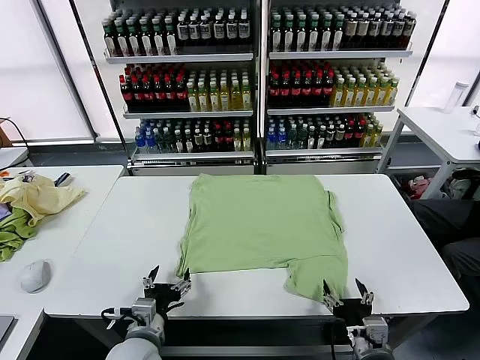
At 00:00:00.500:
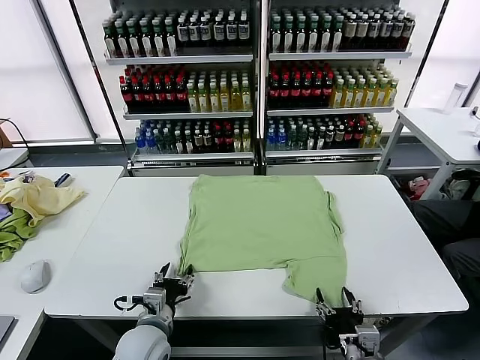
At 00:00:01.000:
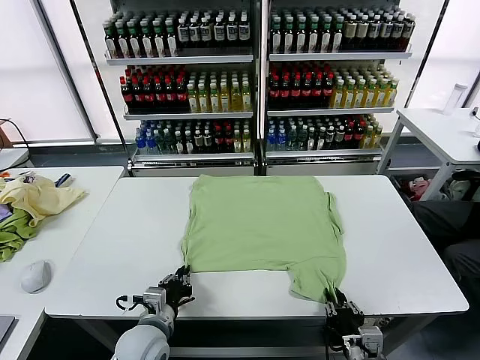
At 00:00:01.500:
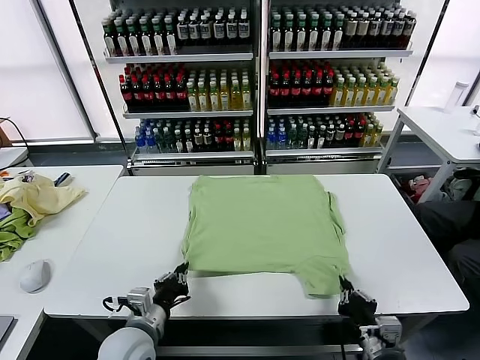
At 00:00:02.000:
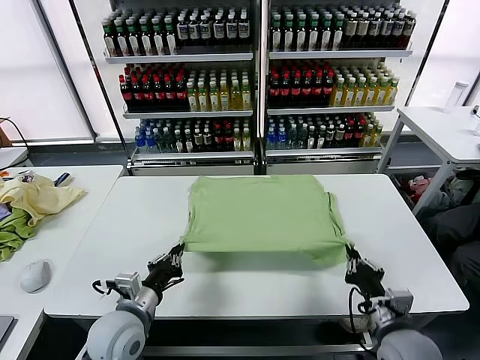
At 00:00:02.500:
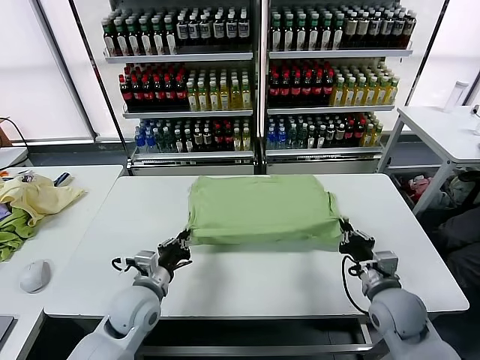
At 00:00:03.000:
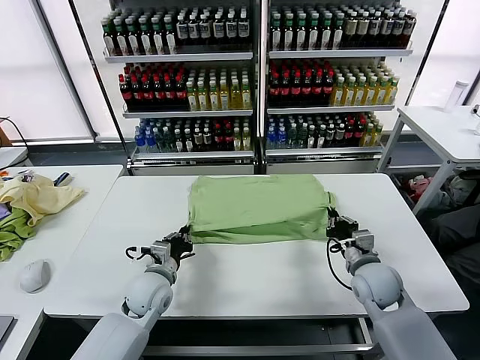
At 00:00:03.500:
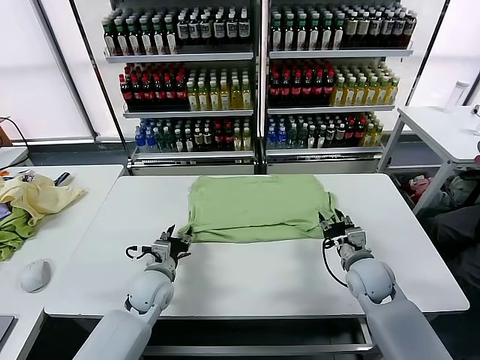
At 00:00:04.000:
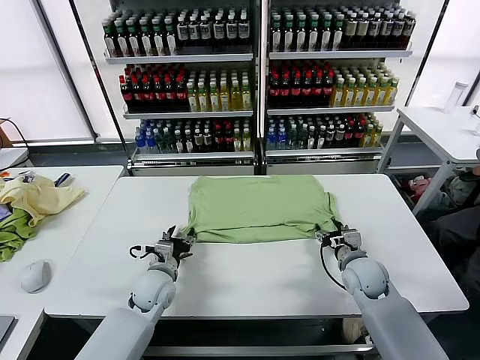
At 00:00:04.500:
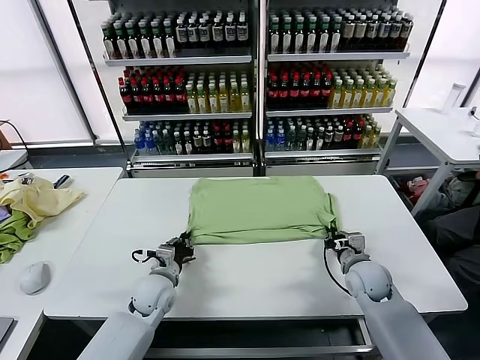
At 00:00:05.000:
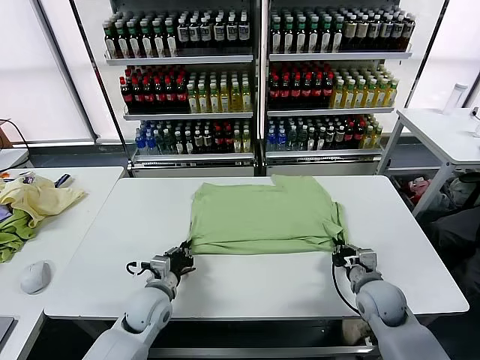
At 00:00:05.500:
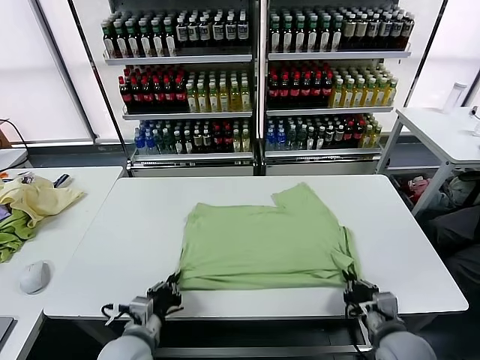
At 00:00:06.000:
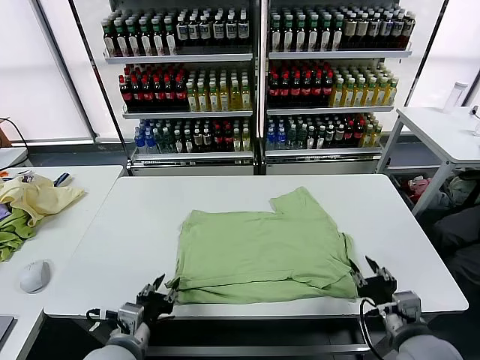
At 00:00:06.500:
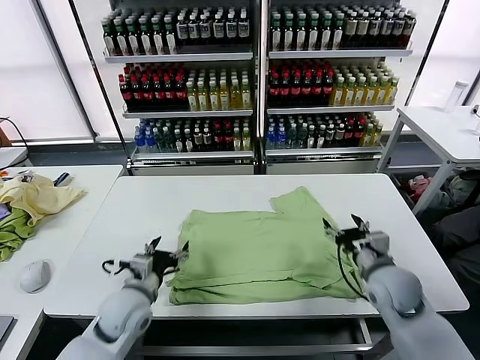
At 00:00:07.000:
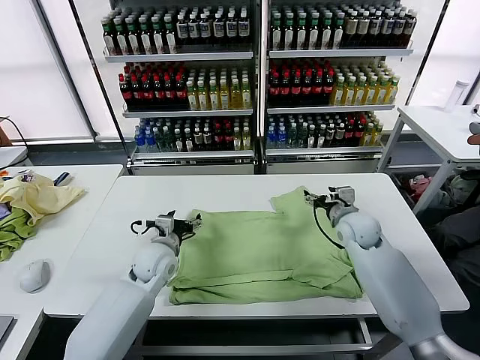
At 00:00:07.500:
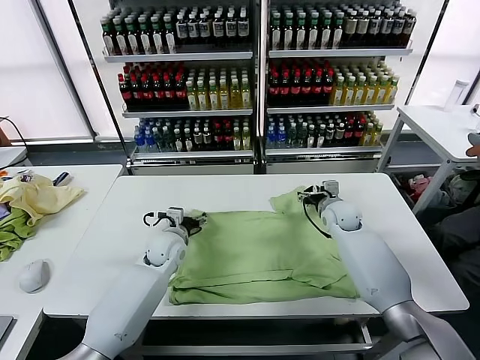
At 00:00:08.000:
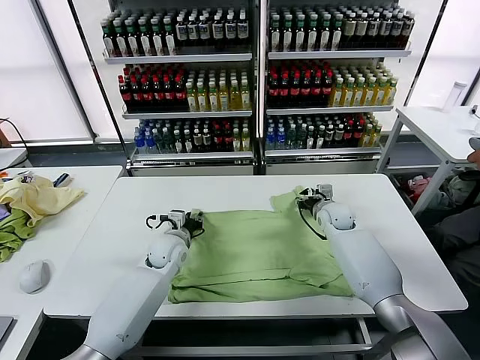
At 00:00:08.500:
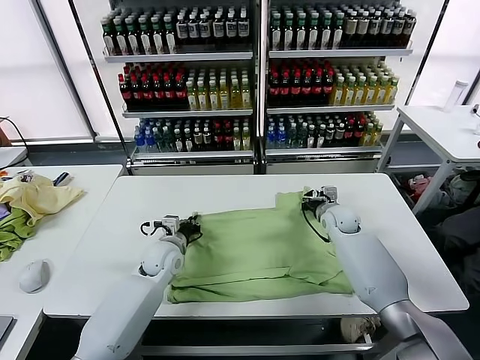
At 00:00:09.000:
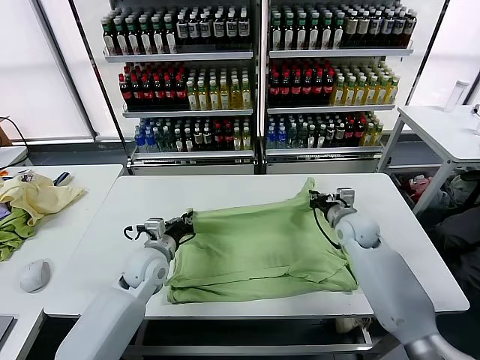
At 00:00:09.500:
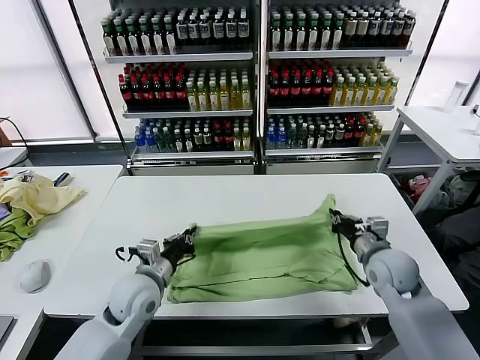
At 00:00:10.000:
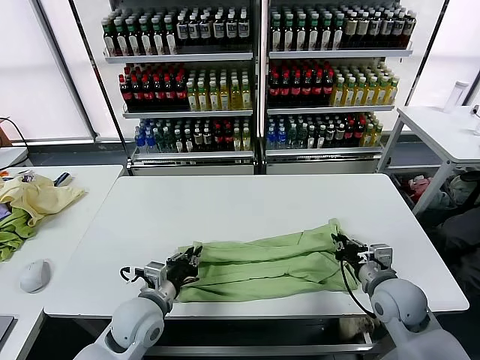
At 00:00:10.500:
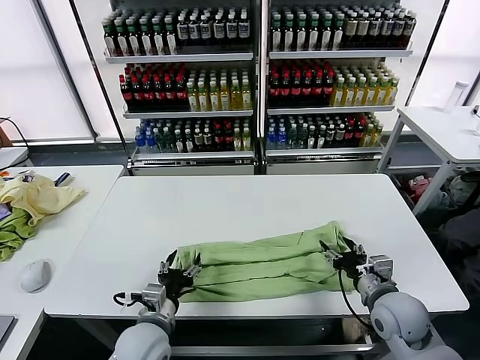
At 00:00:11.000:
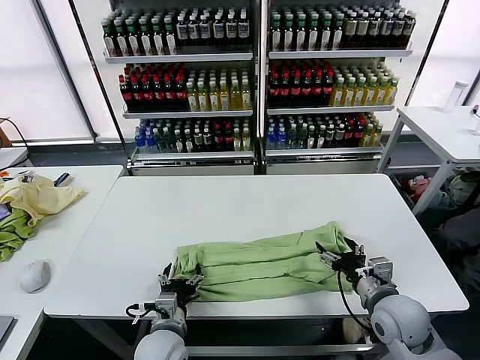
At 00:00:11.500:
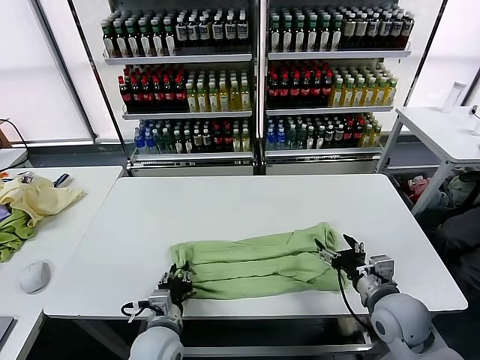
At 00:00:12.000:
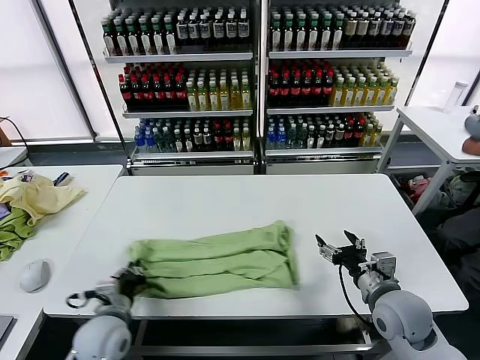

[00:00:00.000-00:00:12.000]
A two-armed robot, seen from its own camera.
Task of the whole recording: fold and organize the clothes.
Step, 00:00:00.000 to 00:00:01.000: use both grippers simultaneously to clamp the lower edge of the clothing fabric.
Step, 00:00:01.500 to 00:00:03.500: use both grippers to drag the lower edge of the fabric forward and fold it over the upper edge.
Step, 00:00:04.000 to 00:00:05.500: Drag the clothes downward with both gripper.
Step, 00:00:06.500 to 00:00:08.000: use both grippers simultaneously to clamp the upper edge of the clothing fabric.
Step, 00:00:08.500 to 00:00:10.000: use both grippers to drag the upper edge of the fabric backward and fold it over the lower edge.
Step, 00:00:10.500 to 00:00:11.500: use the left gripper to clamp the left edge of the fabric.
00:00:02.000 to 00:00:04.000: The left gripper moves forward and downward, some 15 cm, and opens. Meanwhile the right gripper shifts approximately 15 cm forward, and opens up.
00:00:04.000 to 00:00:06.000: The right gripper shifts approximately 20 cm backward and upward, and closes, then reopens, while the left gripper travels backward by about 20 cm, and closes, then reopens.
00:00:06.000 to 00:00:08.000: The grippers both shift forward by about 30 cm. The right gripper opens, then closes again. Meanwhile the left gripper opens and closes again.
00:00:08.000 to 00:00:10.000: Both grippers travel together backward, some 20 cm.
00:00:10.000 to 00:00:12.000: The left gripper travels to the left by roughly 5 cm, and opens and closes again, while the right gripper opens its fingers.

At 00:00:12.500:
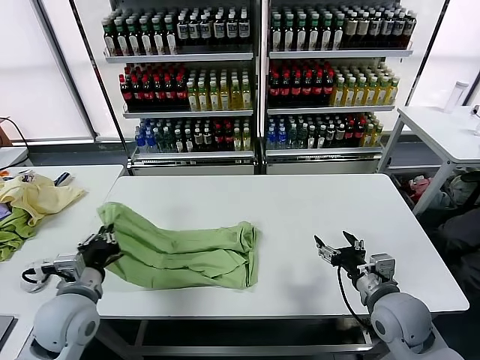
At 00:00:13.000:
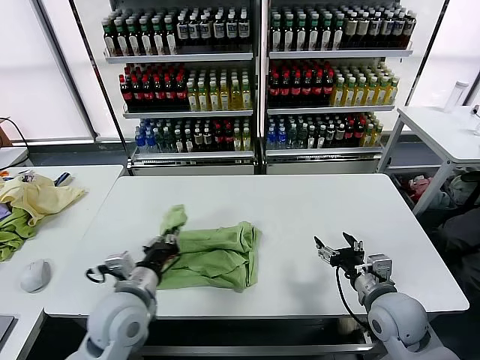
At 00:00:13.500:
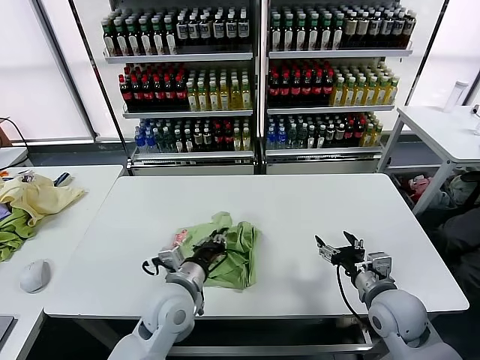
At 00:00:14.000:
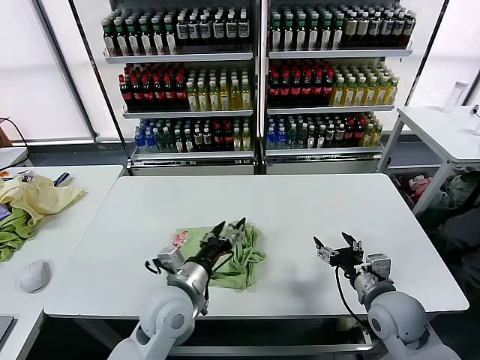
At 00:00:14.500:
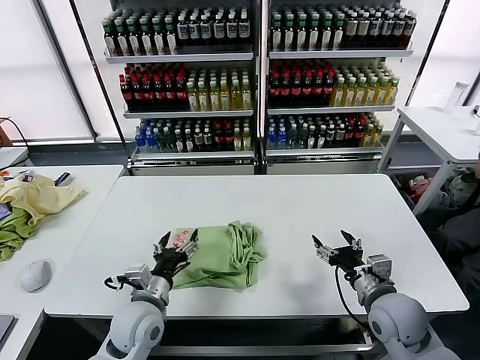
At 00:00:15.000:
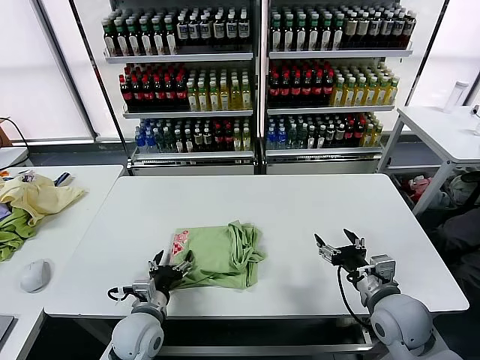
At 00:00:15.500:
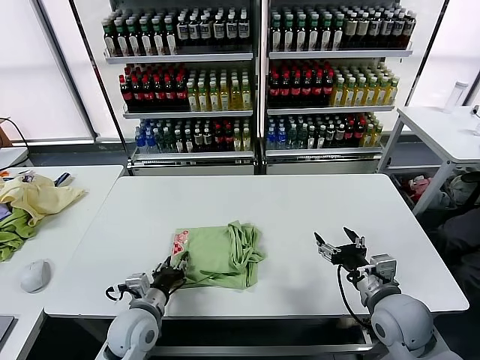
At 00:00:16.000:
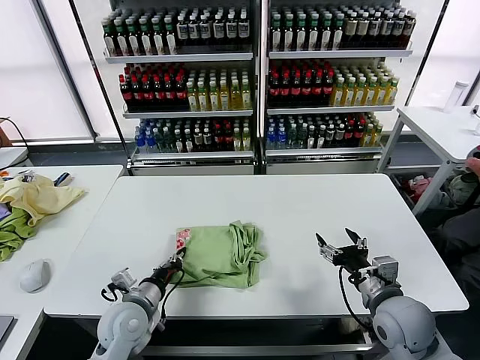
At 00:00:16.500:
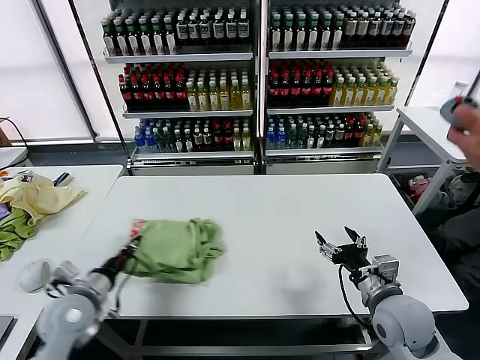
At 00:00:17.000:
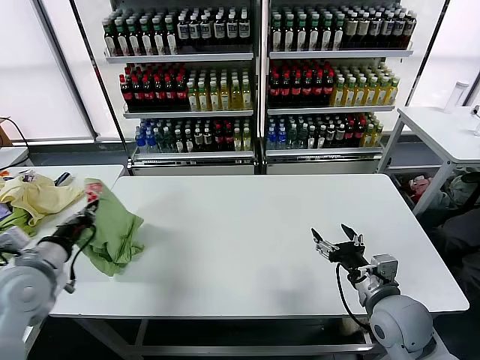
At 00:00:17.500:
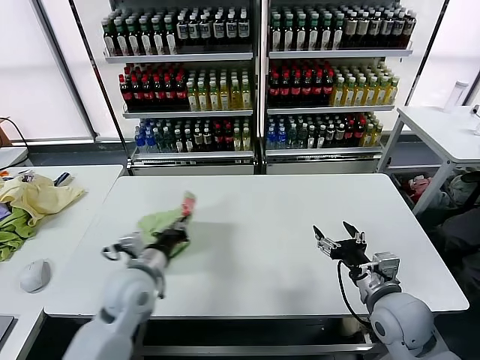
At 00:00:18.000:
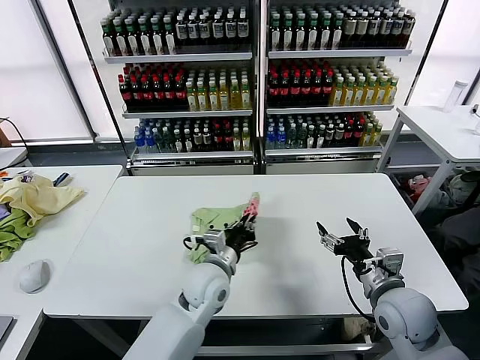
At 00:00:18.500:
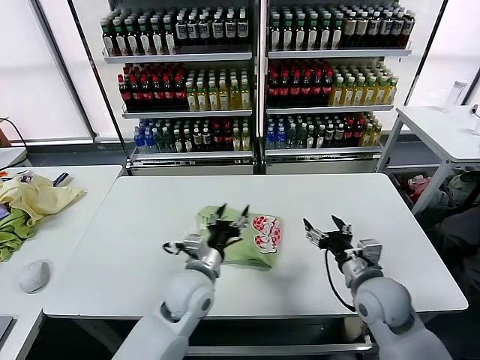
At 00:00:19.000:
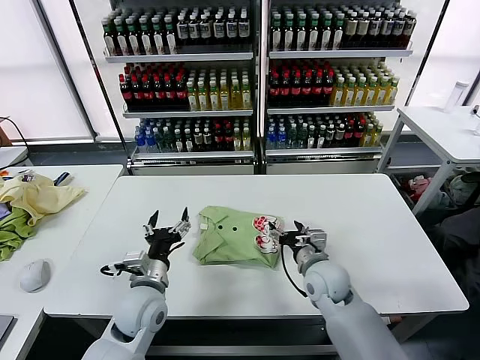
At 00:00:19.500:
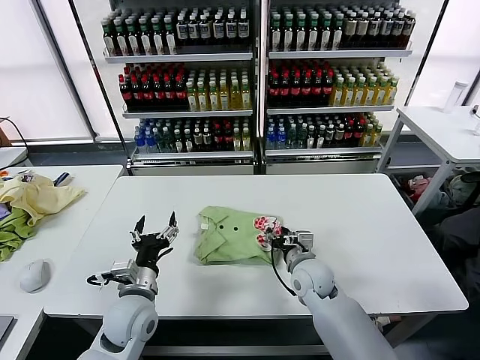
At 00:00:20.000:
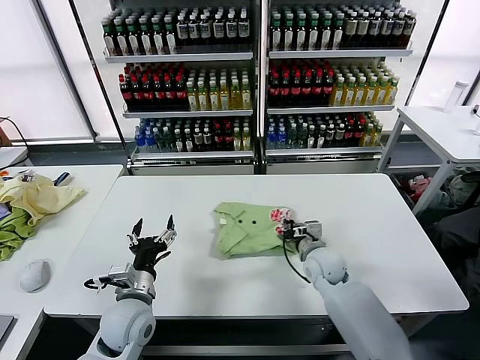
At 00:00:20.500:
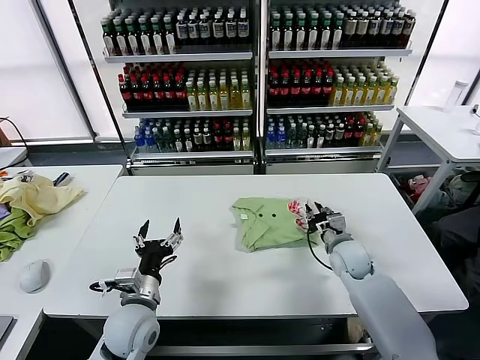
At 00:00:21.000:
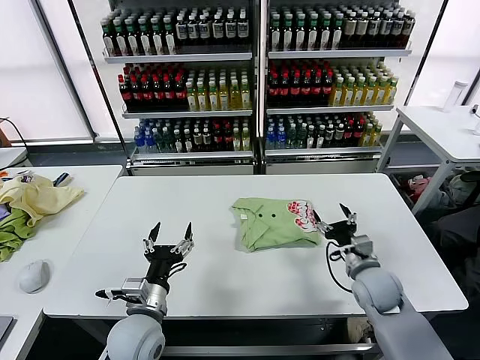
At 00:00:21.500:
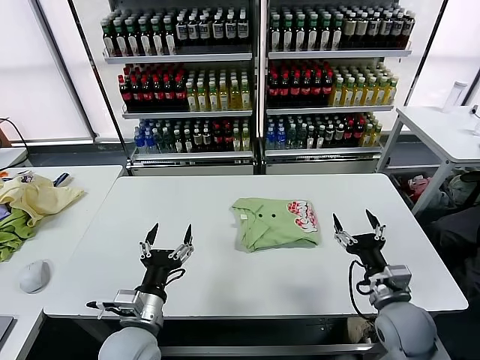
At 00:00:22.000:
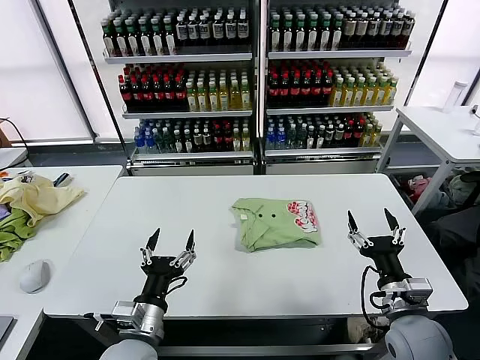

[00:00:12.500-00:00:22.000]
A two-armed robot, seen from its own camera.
Task of the whole recording: fold and organize the clothes.
Step, 00:00:12.500 to 00:00:13.500: use the left gripper to drag the left edge of the fabric to the left and folds it over the right edge.
Step, 00:00:14.000 to 00:00:18.000: Flip the folded clothes over with left gripper.
Step, 00:00:18.500 to 00:00:20.500: Drag the clothes to the center of the table.
00:00:12.500 to 00:00:14.500: The left gripper goes some 10 cm to the right and downward, and opens up.
00:00:14.500 to 00:00:16.500: The left gripper travels to the left by some 15 cm, and closes.
00:00:16.500 to 00:00:18.000: The left gripper heads to the right, covering some 25 cm.
00:00:18.000 to 00:00:20.000: The left gripper shifts roughly 15 cm to the left and backward, and opens up. Meanwhile the right gripper travels forward, to the left and downward by approximately 20 cm, and closes.
00:00:20.000 to 00:00:22.000: The left gripper moves backward, about 10 cm. Meanwhile the right gripper is displaced backward and to the right by roughly 20 cm, and opens its fingers.
